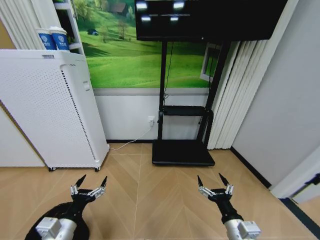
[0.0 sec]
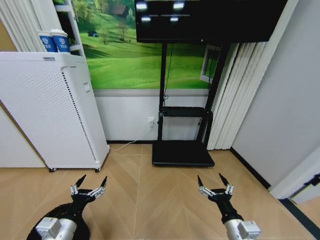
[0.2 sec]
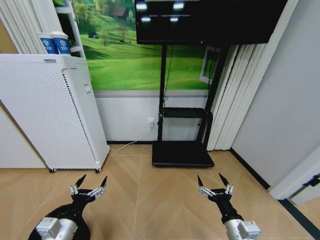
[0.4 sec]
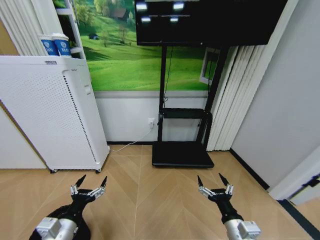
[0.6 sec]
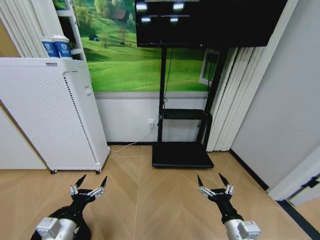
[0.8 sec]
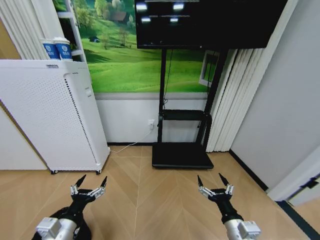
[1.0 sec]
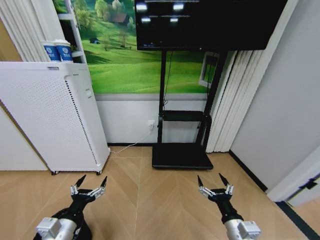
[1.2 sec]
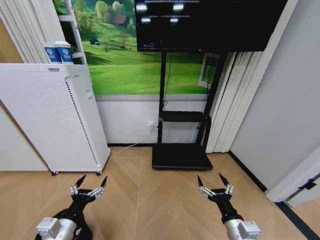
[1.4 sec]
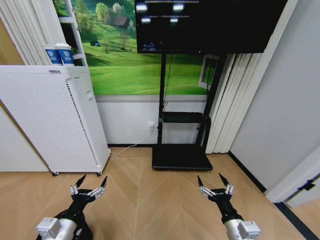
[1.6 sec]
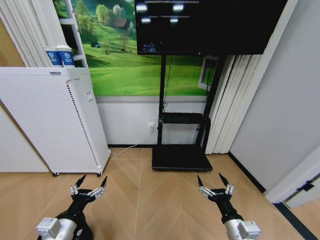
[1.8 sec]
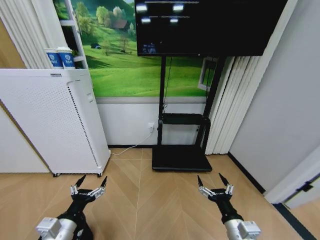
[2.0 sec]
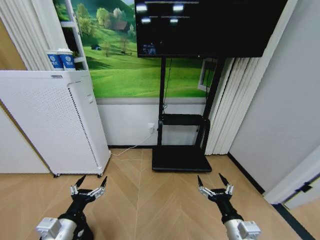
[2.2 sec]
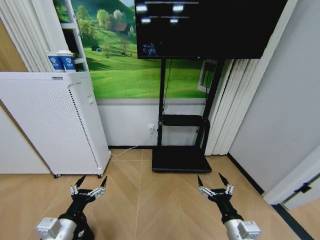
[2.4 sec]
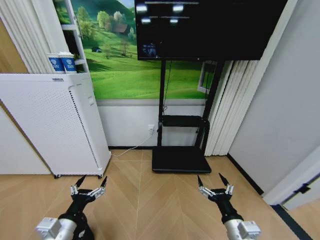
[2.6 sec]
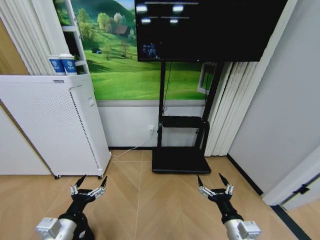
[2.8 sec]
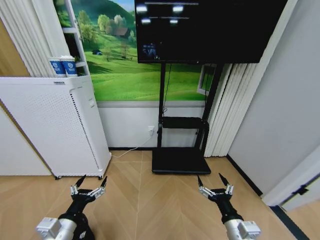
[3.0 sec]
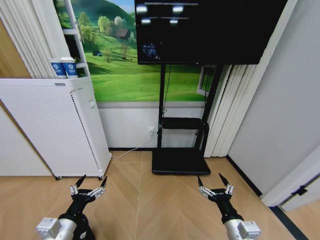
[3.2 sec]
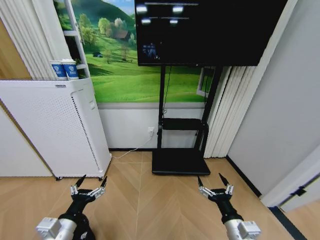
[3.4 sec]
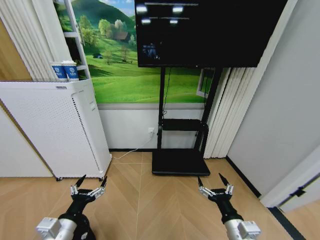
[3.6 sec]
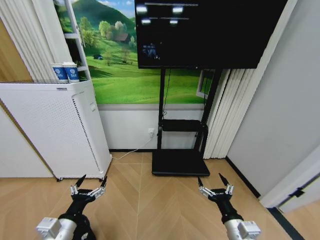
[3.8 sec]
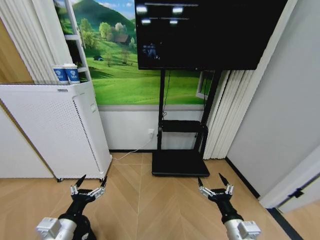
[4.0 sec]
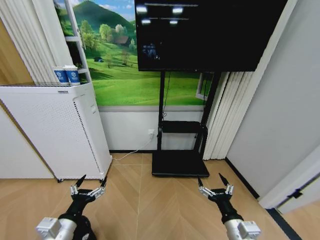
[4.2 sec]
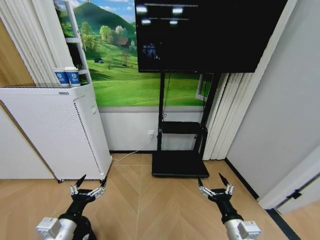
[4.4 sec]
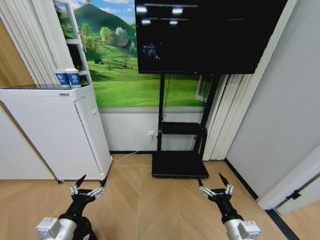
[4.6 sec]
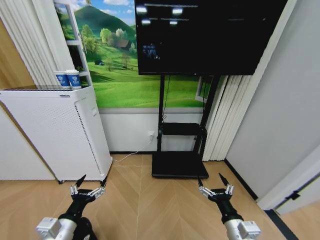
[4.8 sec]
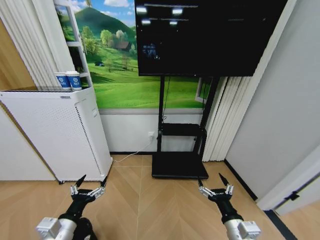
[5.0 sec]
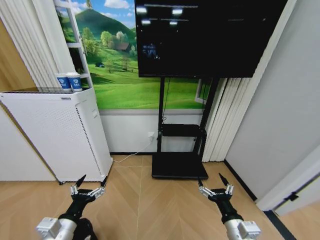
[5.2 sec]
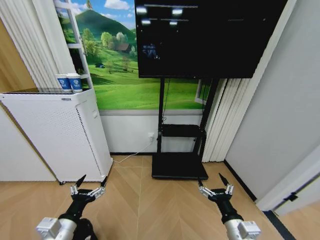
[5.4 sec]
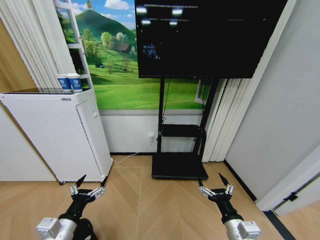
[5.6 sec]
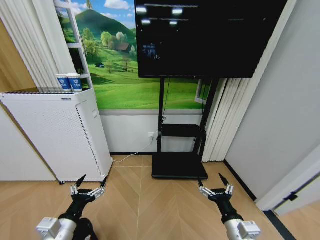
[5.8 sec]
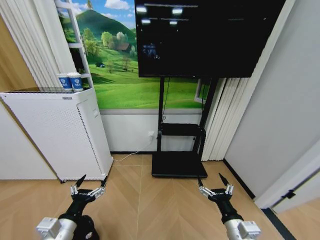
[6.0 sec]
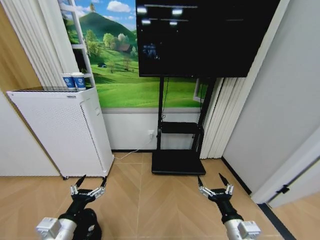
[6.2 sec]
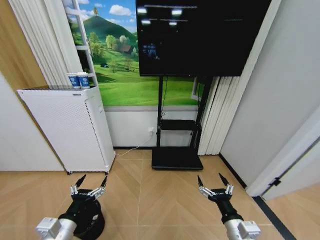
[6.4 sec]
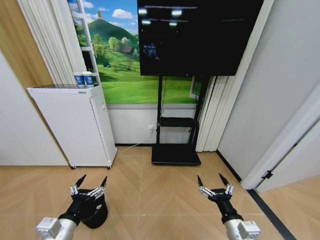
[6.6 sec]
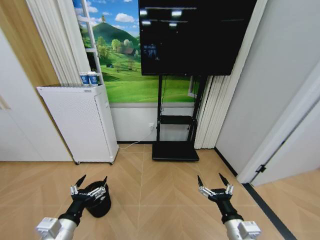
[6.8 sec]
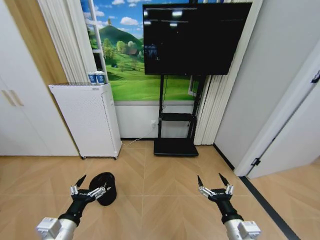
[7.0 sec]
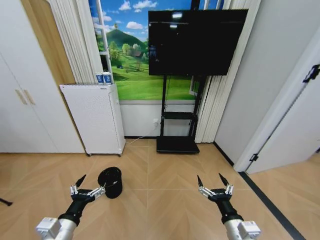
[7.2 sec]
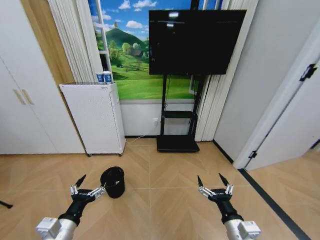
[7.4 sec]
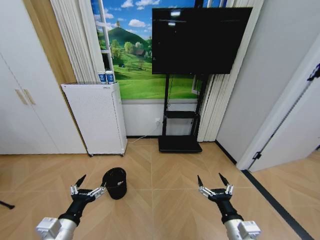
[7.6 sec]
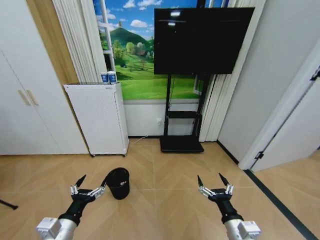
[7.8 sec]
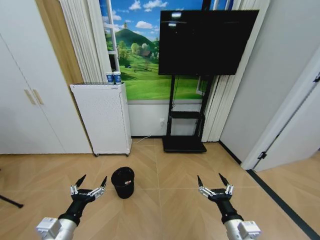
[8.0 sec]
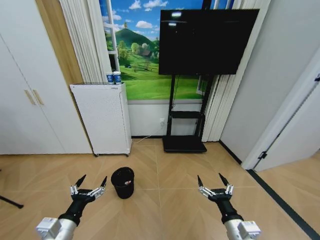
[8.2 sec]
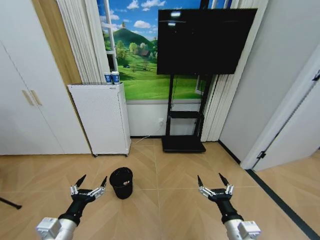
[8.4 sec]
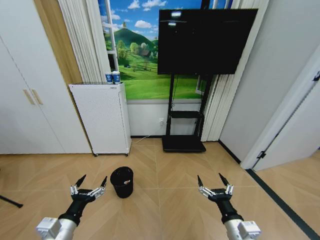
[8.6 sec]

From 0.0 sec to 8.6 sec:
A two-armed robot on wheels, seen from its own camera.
Task of the whole recording: Pick up the trash bin and place the garbage on the floor into it.
From 0.0 sec to 5.8 sec: Both grippers stay put.
